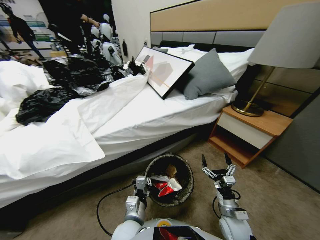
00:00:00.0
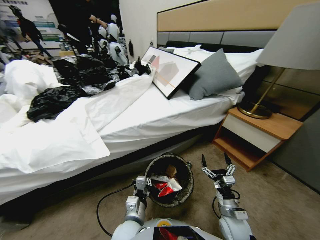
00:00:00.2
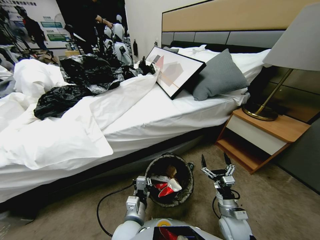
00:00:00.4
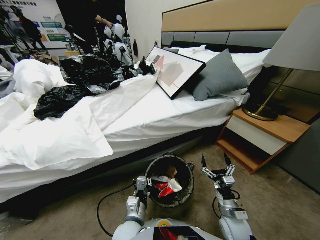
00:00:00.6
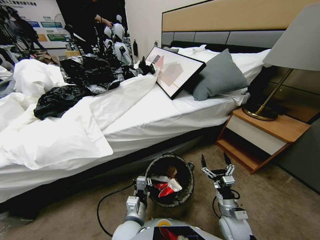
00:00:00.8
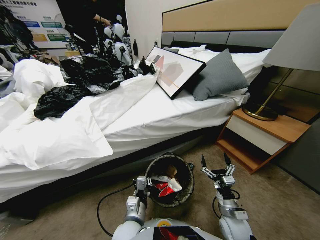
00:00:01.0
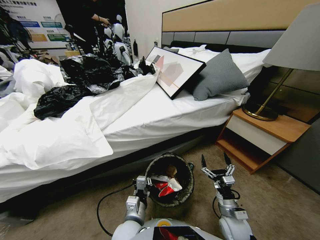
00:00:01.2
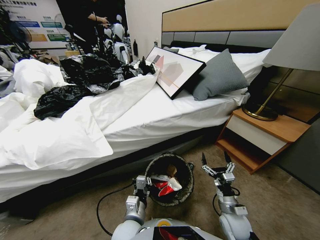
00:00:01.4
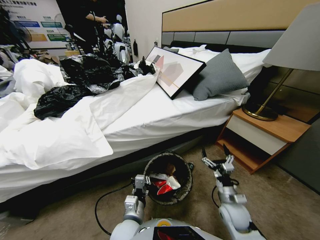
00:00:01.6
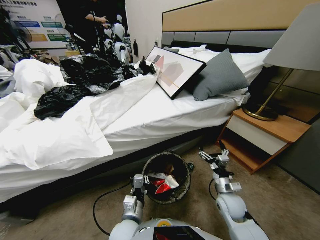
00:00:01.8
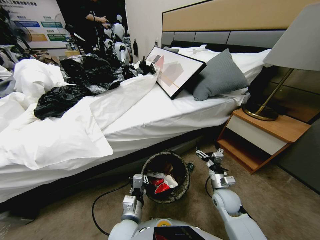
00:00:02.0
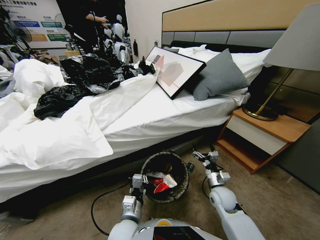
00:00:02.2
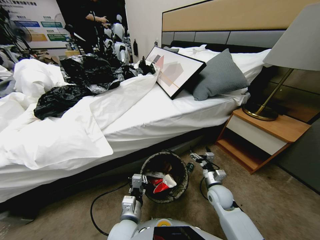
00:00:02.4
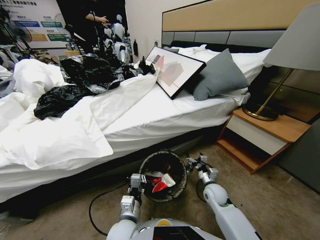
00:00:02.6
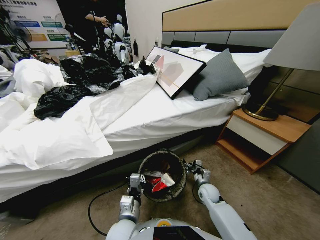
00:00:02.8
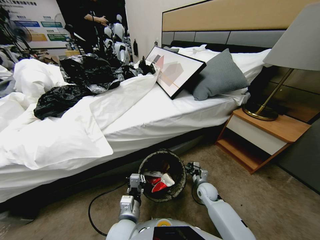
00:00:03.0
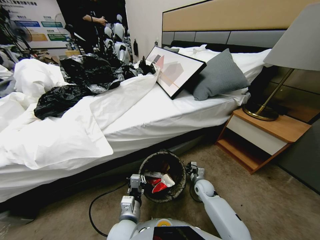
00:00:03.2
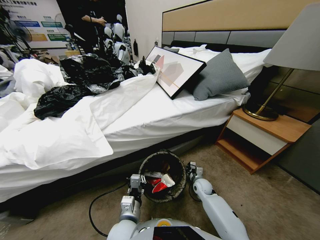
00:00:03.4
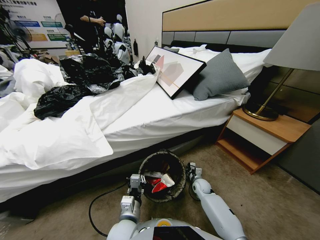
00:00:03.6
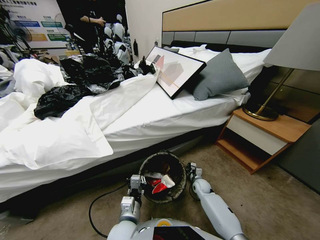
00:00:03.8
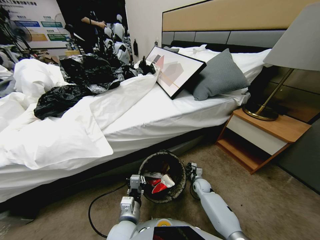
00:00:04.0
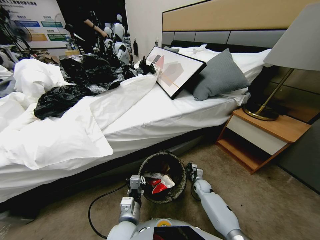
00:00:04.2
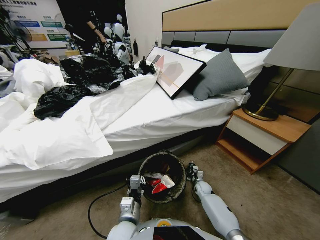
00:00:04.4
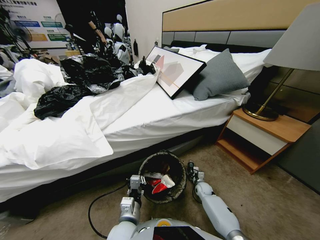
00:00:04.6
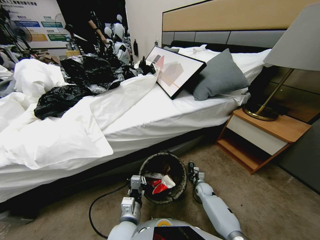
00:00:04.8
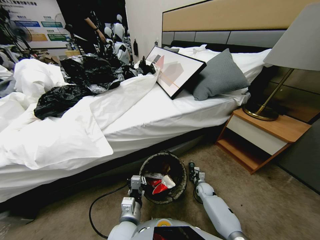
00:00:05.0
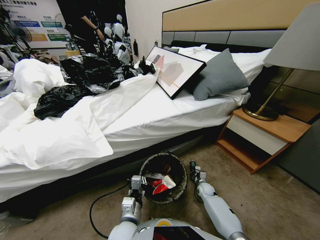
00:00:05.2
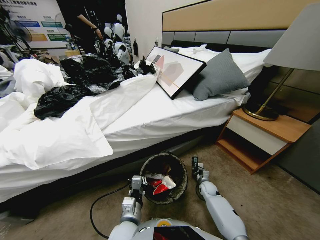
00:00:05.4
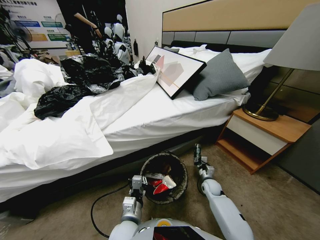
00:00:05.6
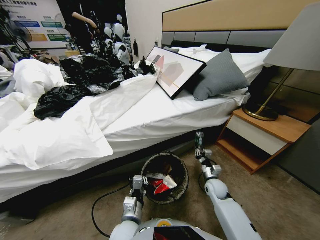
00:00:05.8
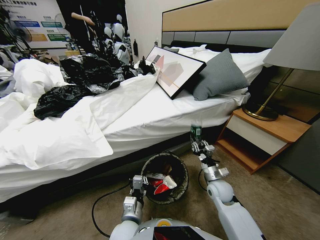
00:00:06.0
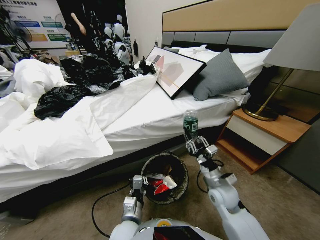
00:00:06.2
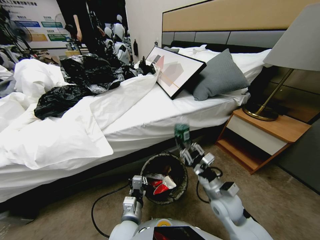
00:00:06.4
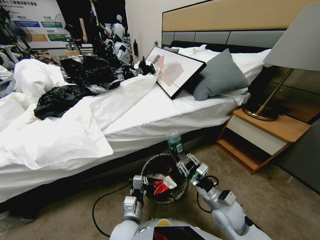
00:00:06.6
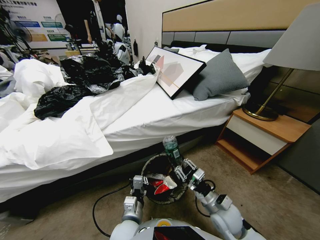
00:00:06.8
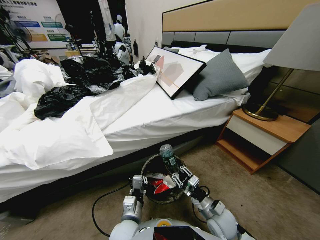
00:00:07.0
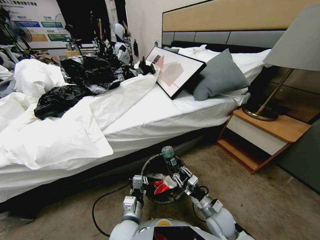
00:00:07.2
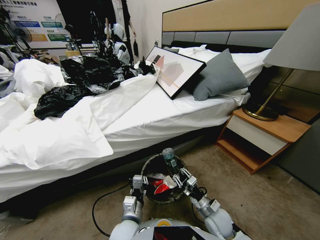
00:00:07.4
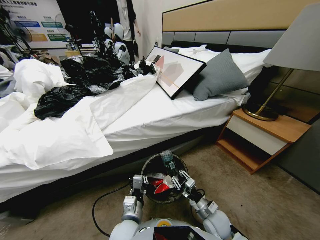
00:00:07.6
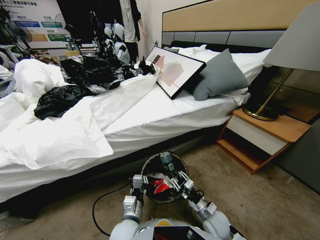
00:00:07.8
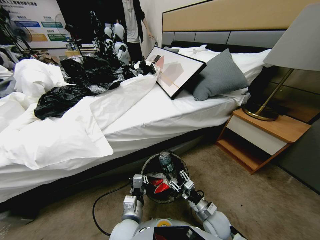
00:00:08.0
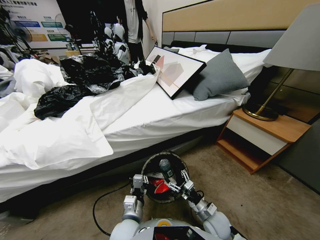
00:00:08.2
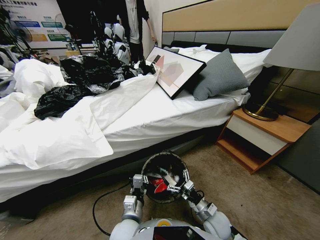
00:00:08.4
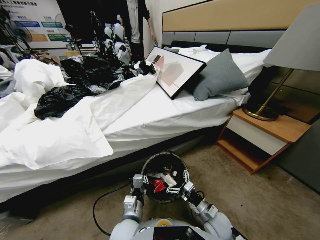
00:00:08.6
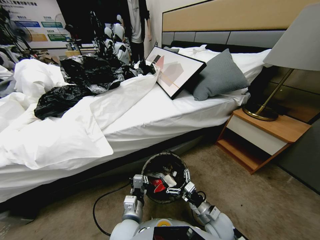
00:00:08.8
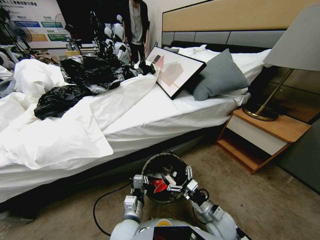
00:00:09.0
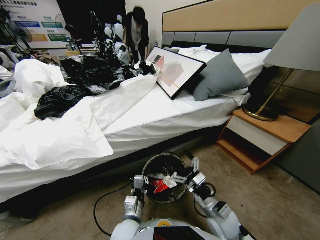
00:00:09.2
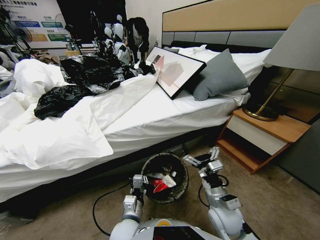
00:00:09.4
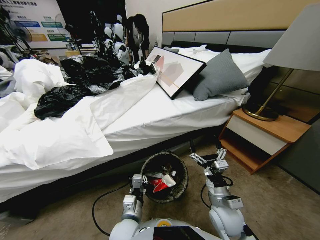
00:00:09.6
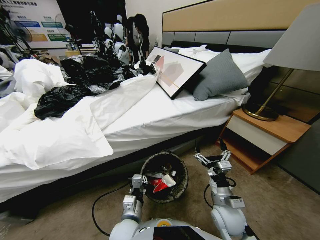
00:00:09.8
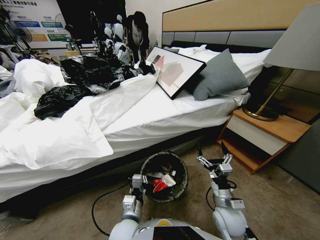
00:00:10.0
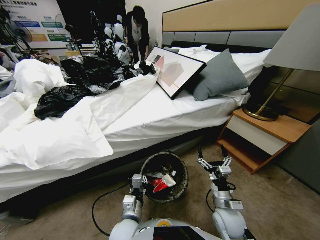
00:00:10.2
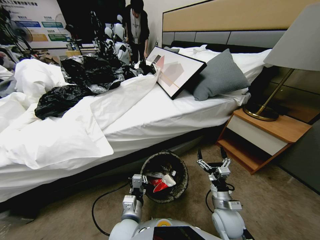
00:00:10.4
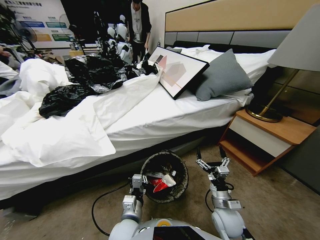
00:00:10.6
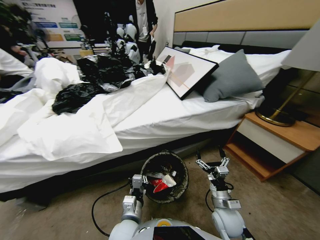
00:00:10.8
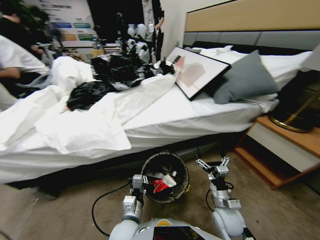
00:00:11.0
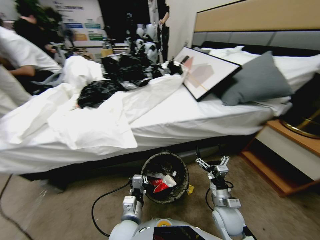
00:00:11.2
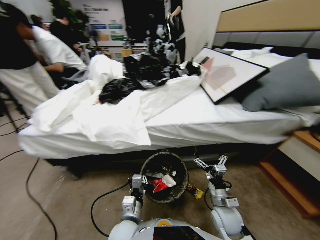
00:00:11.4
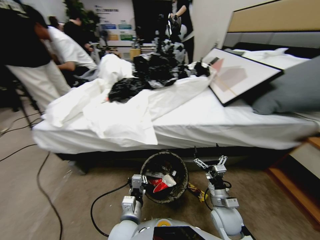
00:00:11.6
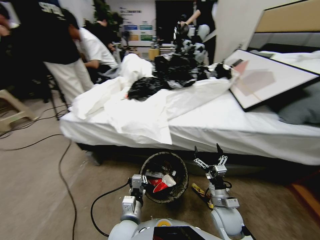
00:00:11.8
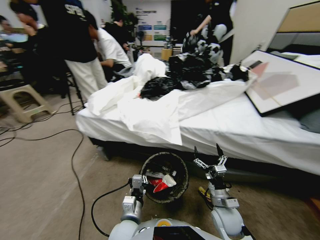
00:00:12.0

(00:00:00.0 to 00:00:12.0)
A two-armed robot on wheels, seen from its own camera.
Task of the whole recording: Pick up the trash bin, then pick up the garbage from the floor and place it into the trash bin.
00:00:00.0 - 00:00:01.6: The right gripper travels forward by approximately 5 cm.
00:00:01.6 - 00:00:03.0: The right gripper heads downward and forward, covering about 15 cm.
00:00:03.0 - 00:00:04.4: The right gripper is displaced downward by roughly 10 cm, and closes.
00:00:04.4 - 00:00:06.0: The right gripper shifts some 25 cm upward.
00:00:06.0 - 00:00:07.6: The right gripper is displaced downward and backward by roughly 15 cm.
00:00:07.6 - 00:00:09.0: The right gripper travels upward by some 5 cm, and opens its fingers.

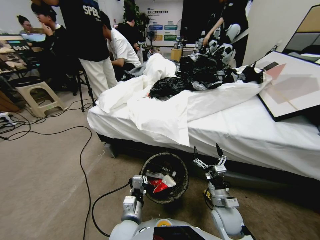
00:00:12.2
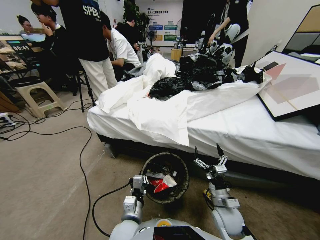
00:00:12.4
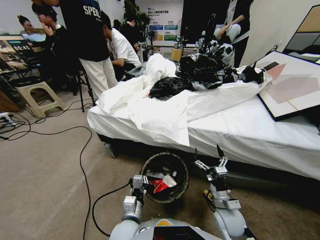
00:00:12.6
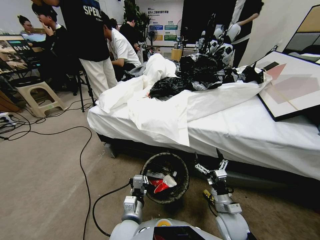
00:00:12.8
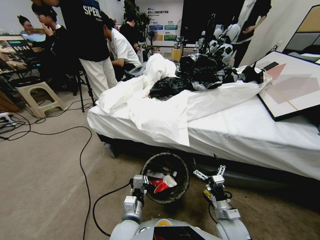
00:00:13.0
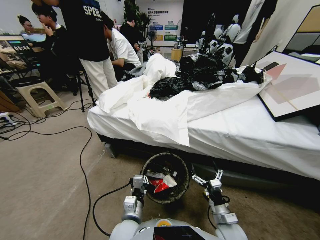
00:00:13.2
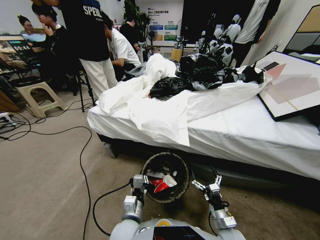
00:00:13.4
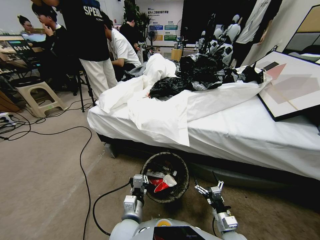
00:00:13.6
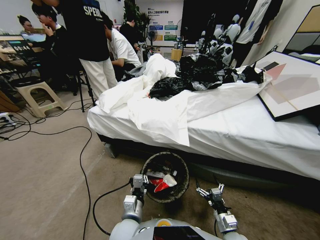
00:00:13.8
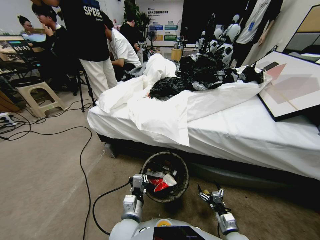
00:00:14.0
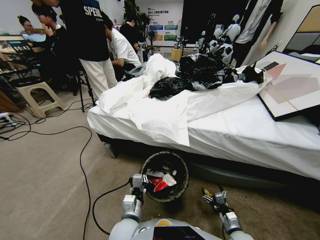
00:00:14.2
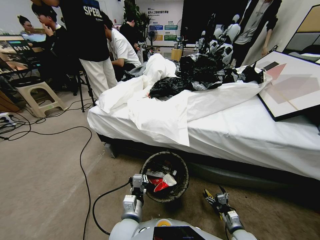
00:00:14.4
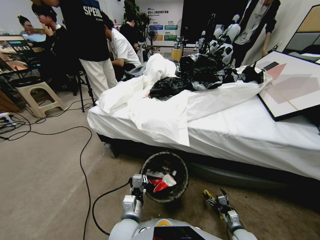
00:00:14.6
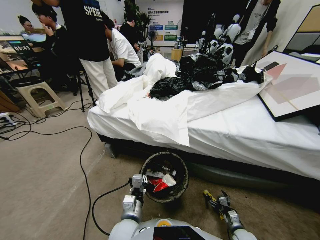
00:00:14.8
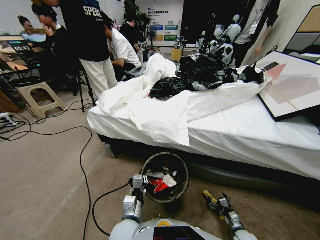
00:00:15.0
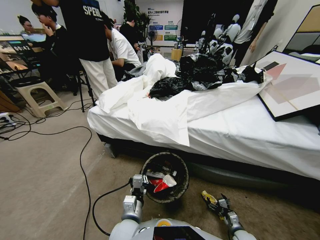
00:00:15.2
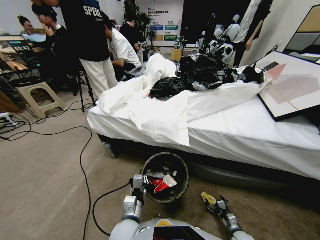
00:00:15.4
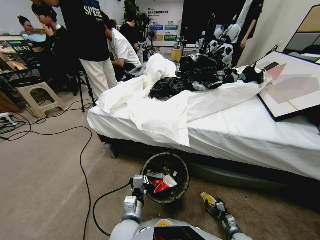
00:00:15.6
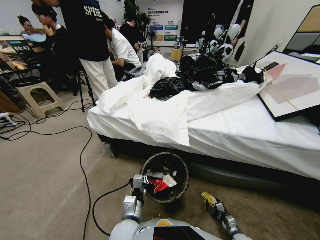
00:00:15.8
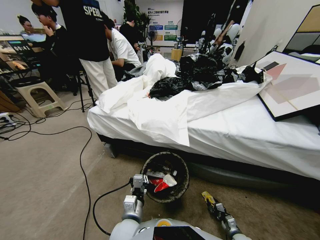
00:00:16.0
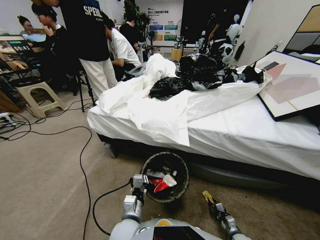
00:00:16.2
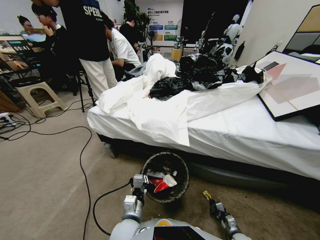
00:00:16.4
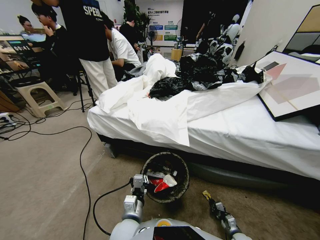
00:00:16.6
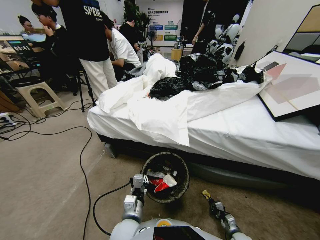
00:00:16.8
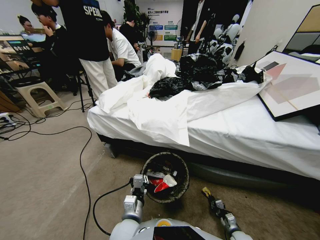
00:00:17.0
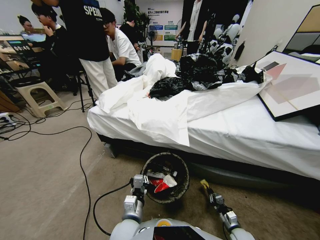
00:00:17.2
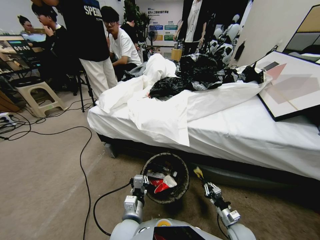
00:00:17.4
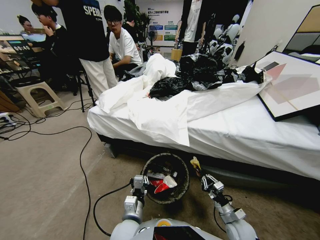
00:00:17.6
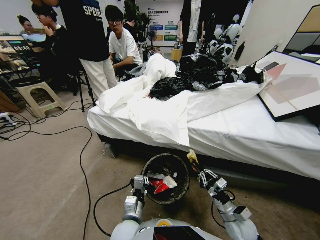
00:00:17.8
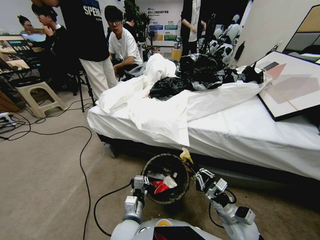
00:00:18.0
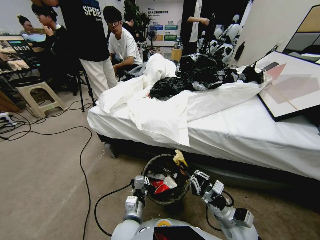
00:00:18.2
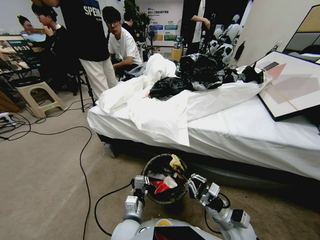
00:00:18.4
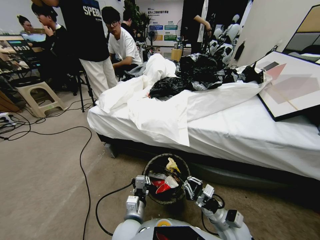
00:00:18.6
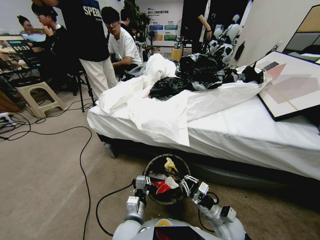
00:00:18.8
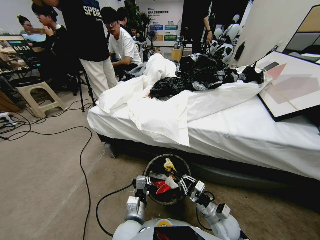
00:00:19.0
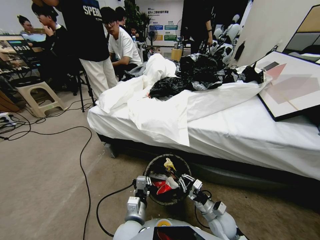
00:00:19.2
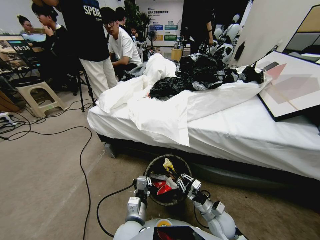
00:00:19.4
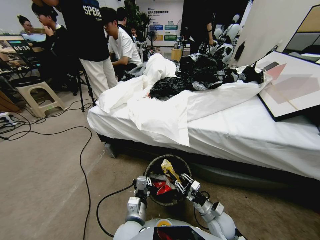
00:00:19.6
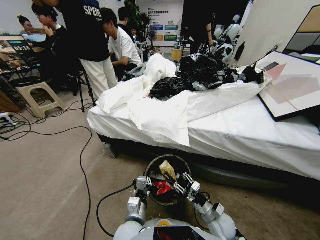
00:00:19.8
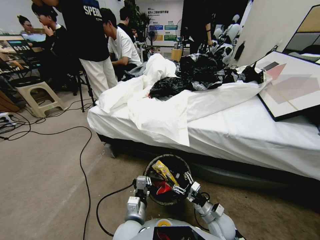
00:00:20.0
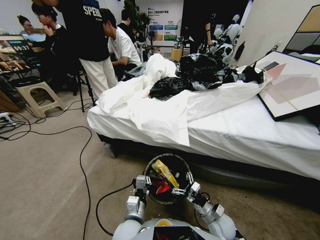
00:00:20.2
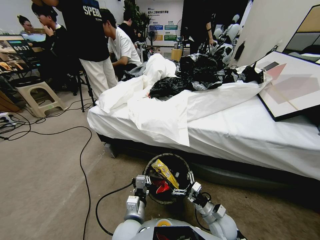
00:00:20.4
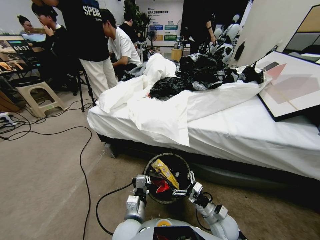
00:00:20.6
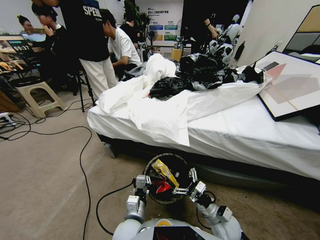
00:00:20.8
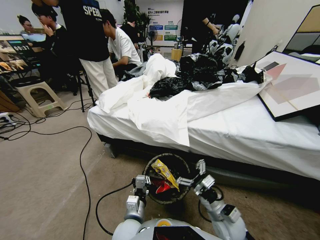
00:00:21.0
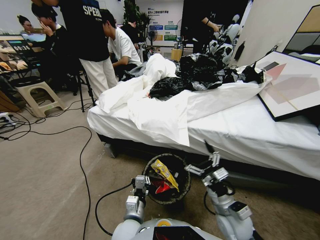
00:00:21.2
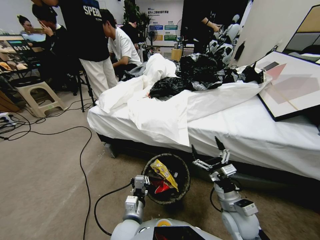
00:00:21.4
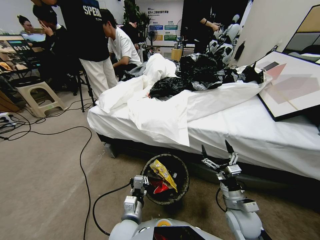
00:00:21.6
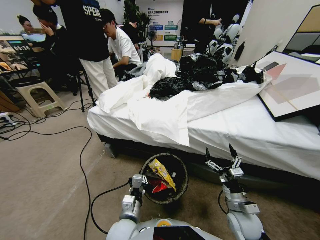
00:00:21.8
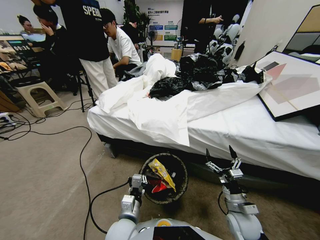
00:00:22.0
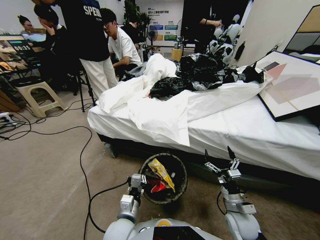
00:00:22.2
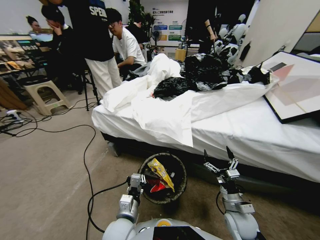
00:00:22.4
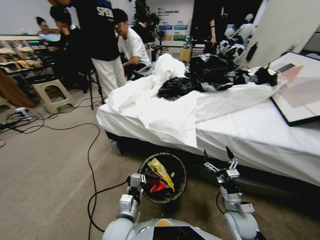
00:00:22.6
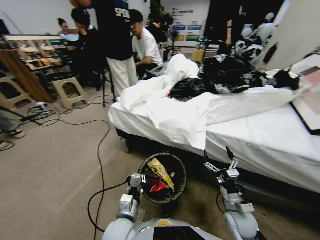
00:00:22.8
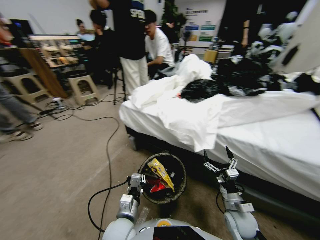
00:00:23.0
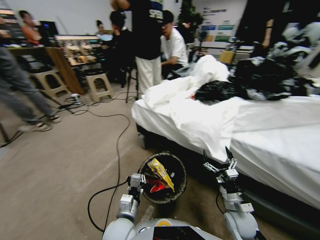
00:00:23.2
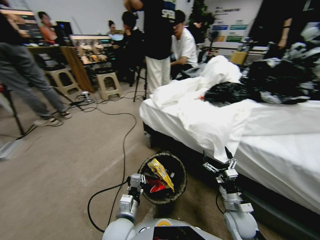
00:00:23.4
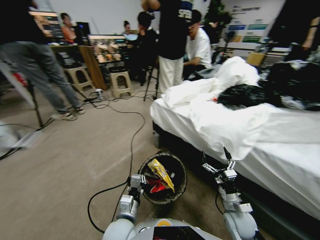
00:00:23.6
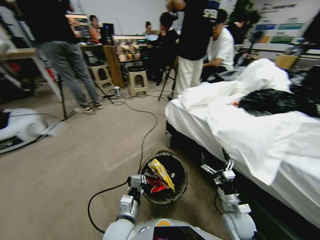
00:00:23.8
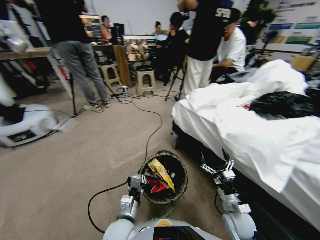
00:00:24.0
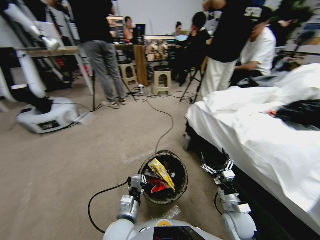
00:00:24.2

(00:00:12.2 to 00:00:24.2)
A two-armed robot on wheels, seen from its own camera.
Task of the whole recording: Pick up the trash bin, then pick up the garbage from the floor and place it into the trash bin.
00:00:12.2 - 00:00:13.8: The right gripper heads downward, backward and to the right, covering some 15 cm.
00:00:13.8 - 00:00:15.2: The right gripper shifts roughly 15 cm downward and to the right.
00:00:15.2 - 00:00:16.6: The right gripper closes up.
00:00:16.6 - 00:00:18.2: The right gripper travels upward and to the left by about 25 cm.
00:00:18.2 - 00:00:19.8: The right gripper heads downward, covering approximately 10 cm, and opens up.
00:00:19.8 - 00:00:21.2: The right gripper moves upward, roughly 10 cm.
00:00:21.2 - 00:00:22.6: The right gripper travels downward by approximately 5 cm.
